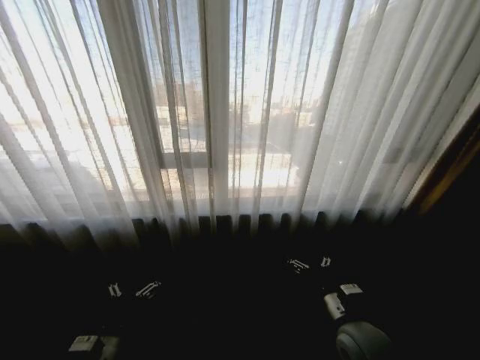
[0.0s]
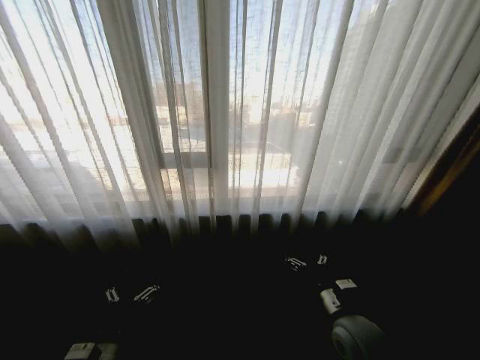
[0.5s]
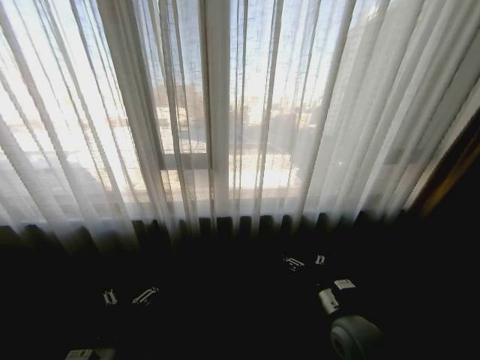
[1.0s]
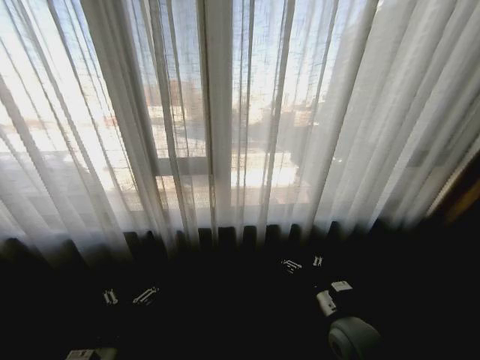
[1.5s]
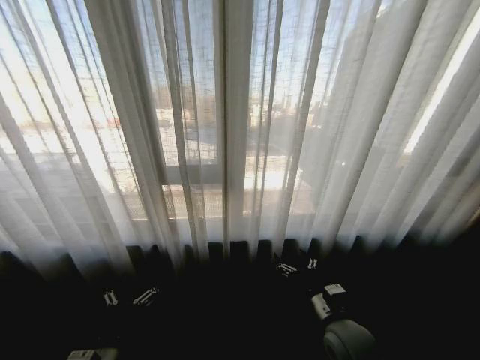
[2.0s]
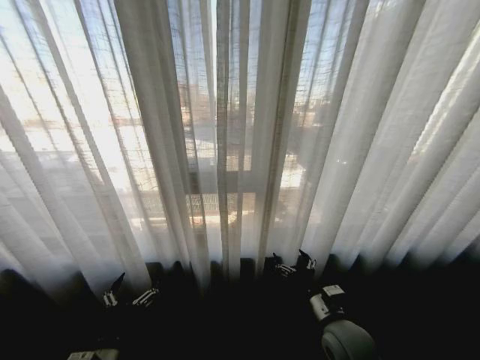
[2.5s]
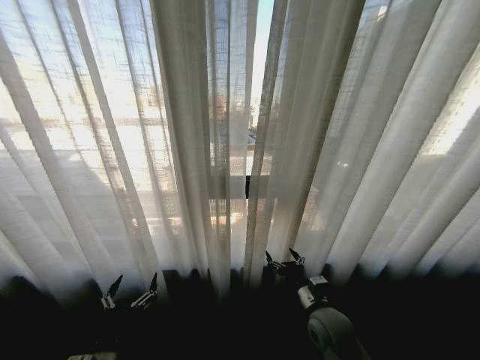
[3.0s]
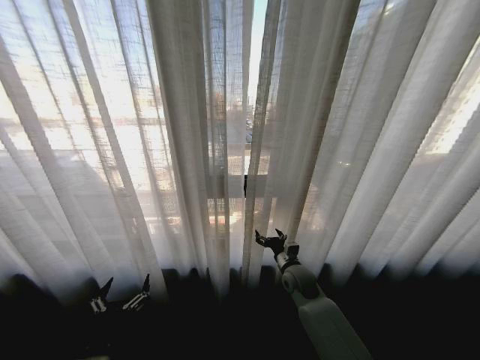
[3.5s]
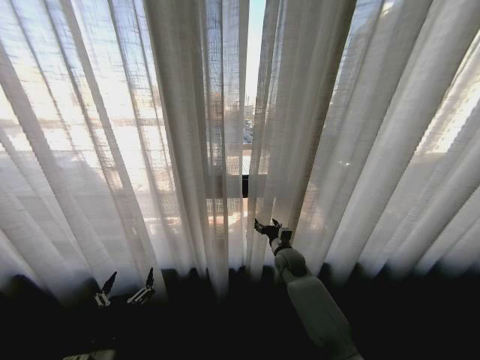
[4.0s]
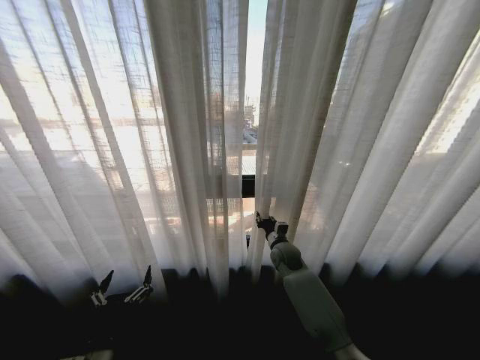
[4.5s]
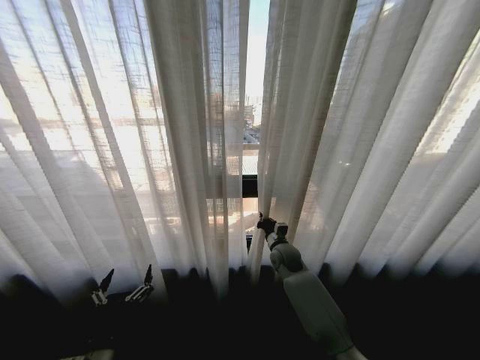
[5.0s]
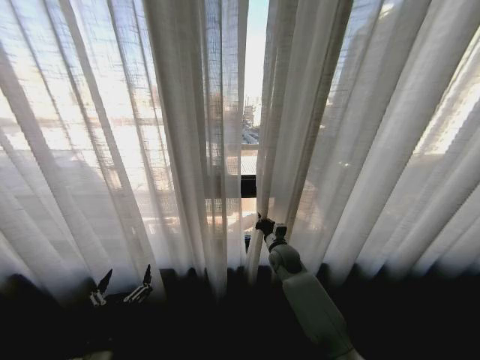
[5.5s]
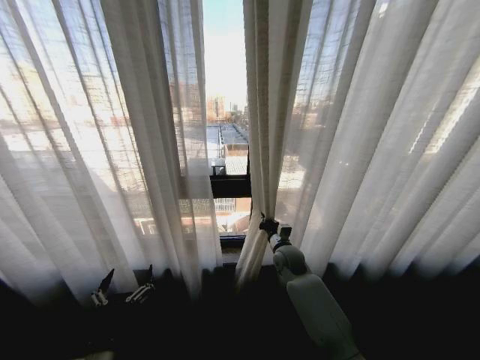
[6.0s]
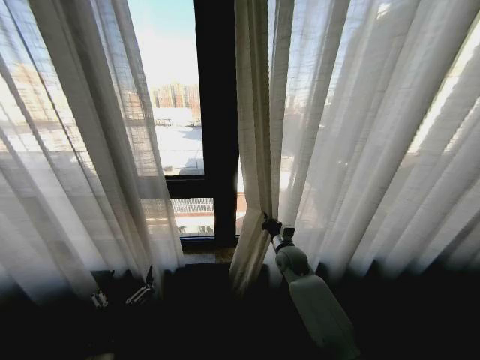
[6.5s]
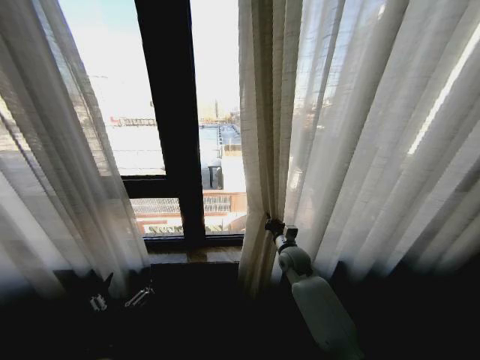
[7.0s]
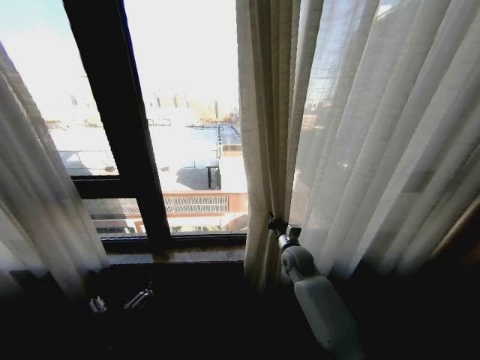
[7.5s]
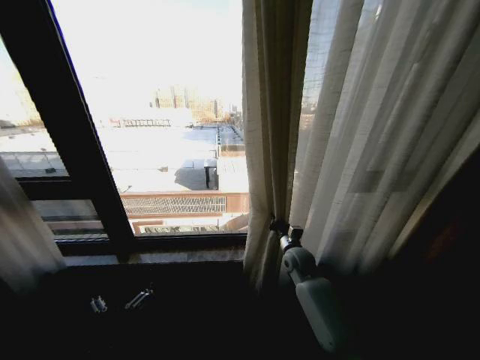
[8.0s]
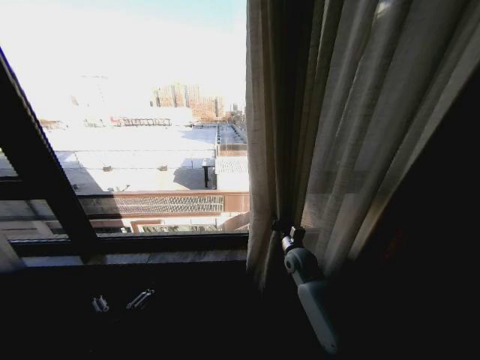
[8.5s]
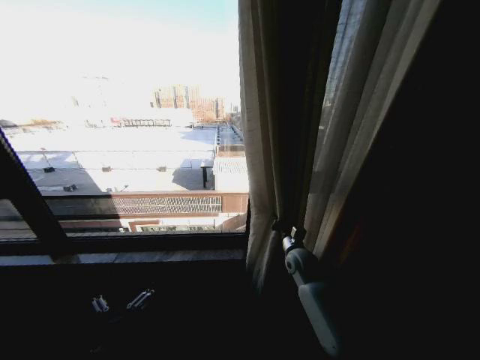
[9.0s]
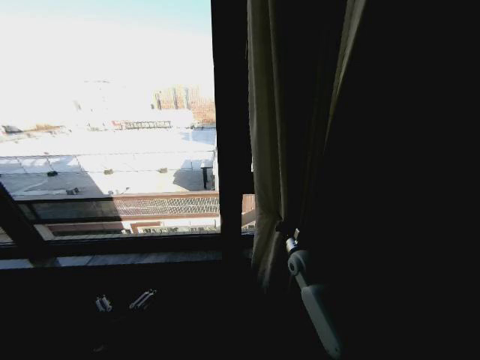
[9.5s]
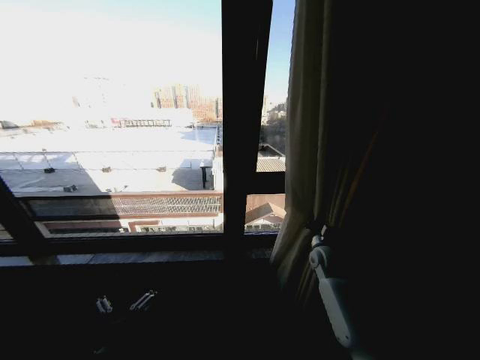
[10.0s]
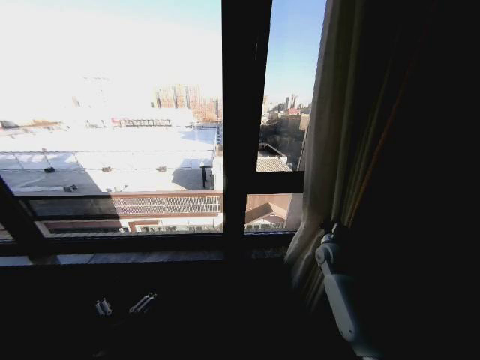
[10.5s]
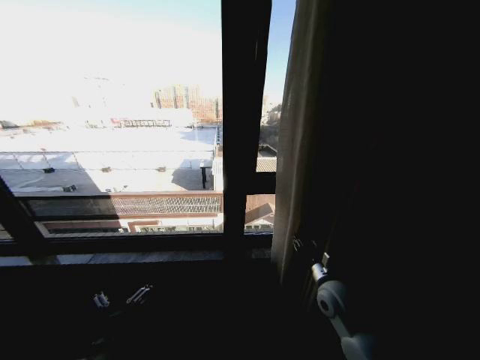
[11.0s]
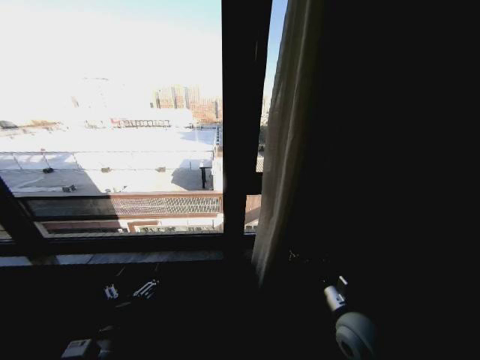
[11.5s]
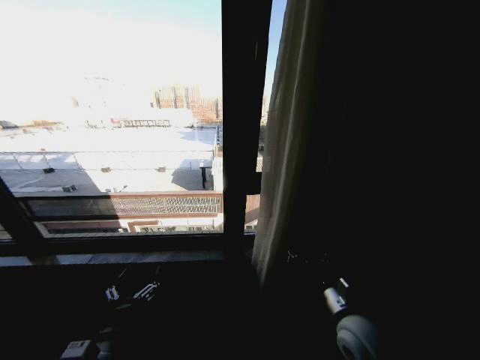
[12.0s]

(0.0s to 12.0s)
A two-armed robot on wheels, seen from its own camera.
Task of the whole recording: Open the curtains by pulling them apart, changing their state from closed to fully open.
2.0s - 4.0s: The right gripper is displaced forward by some 25 cm.
4.0s - 6.0s: The right gripper closes.
8.0s - 10.0s: The right gripper moves to the right, some 10 cm.
10.0s - 12.0s: The right gripper shifts roughly 25 cm backward, and opens its fingers.

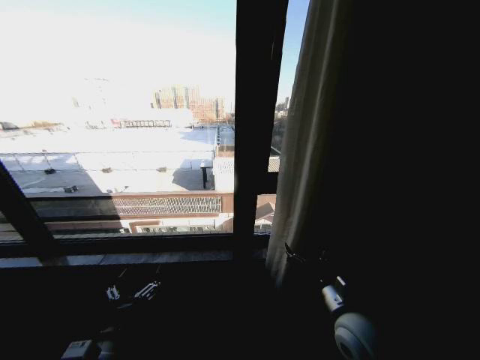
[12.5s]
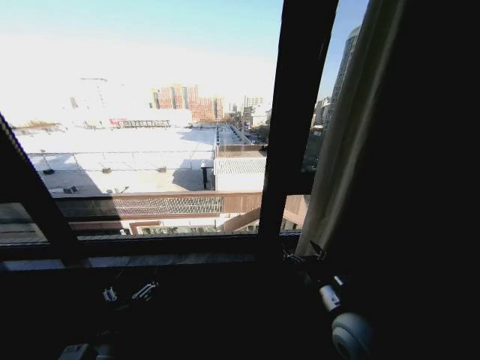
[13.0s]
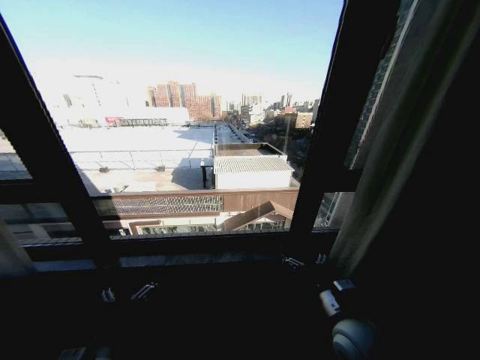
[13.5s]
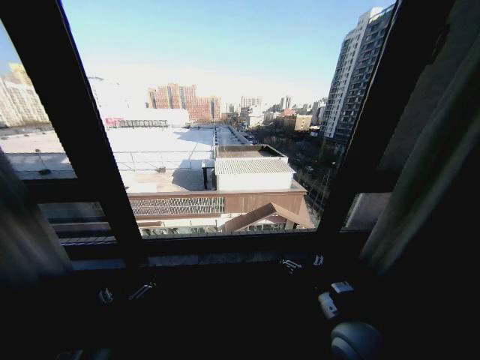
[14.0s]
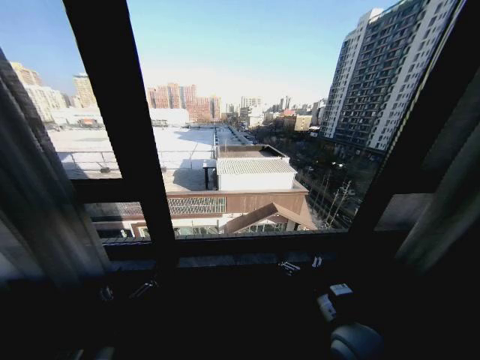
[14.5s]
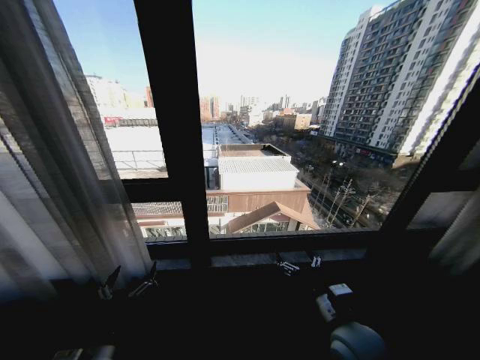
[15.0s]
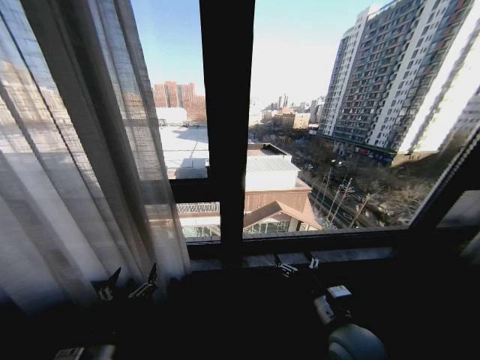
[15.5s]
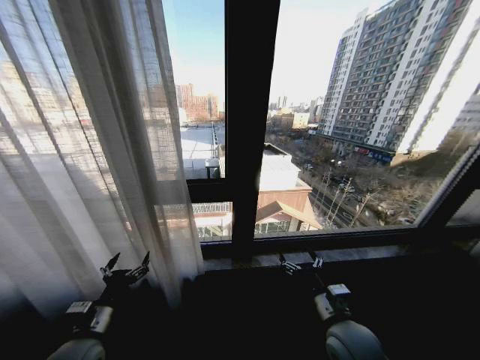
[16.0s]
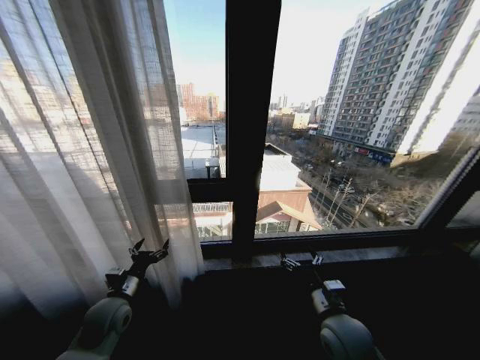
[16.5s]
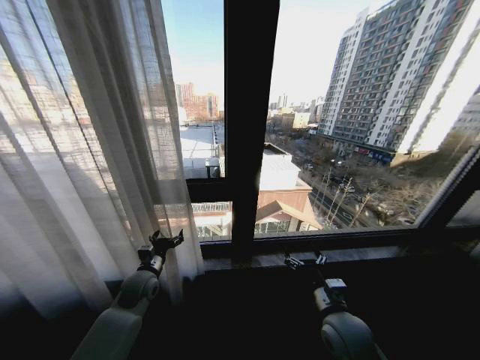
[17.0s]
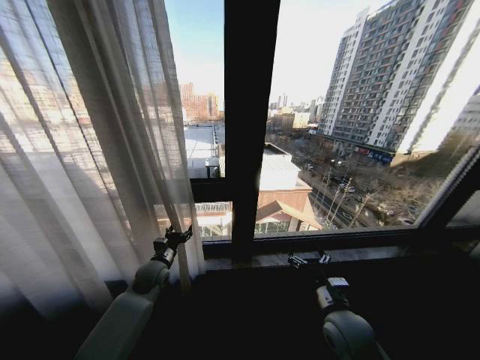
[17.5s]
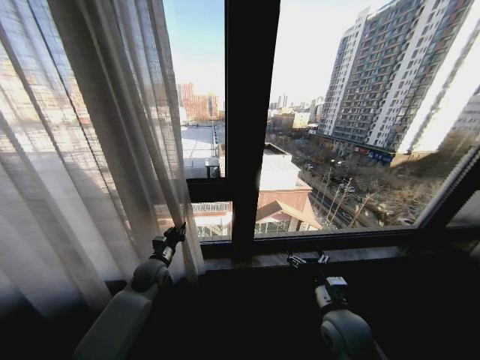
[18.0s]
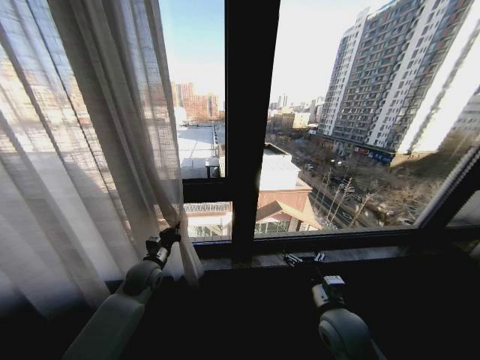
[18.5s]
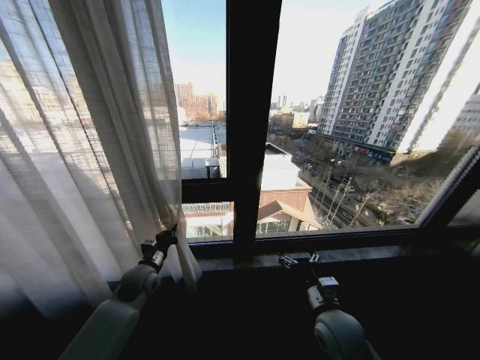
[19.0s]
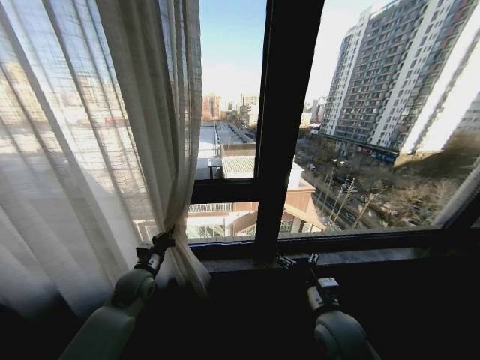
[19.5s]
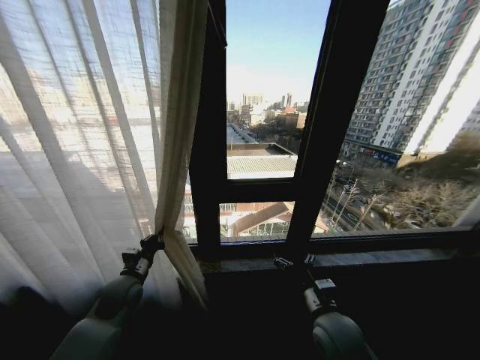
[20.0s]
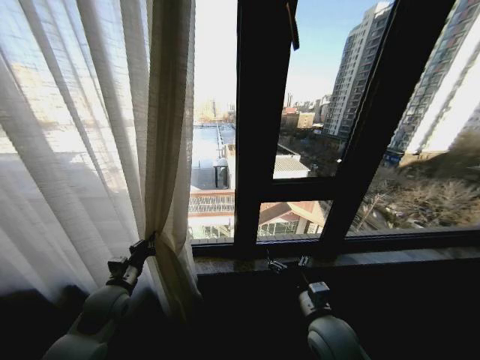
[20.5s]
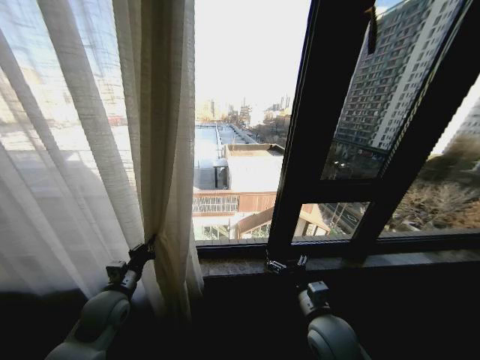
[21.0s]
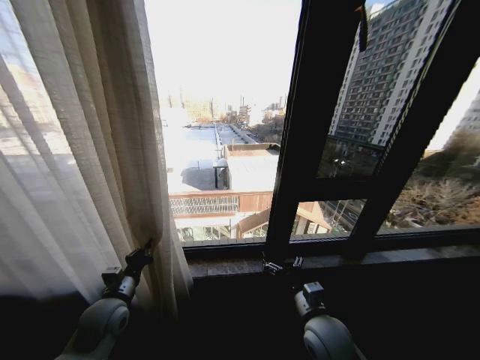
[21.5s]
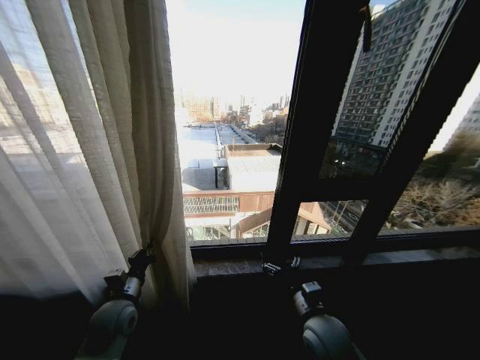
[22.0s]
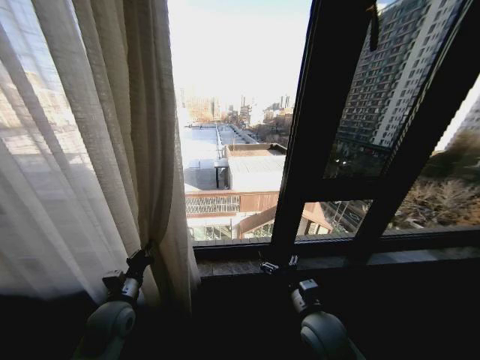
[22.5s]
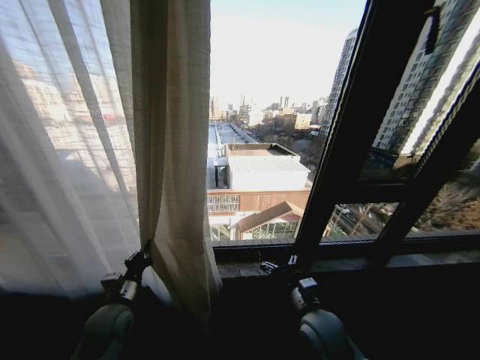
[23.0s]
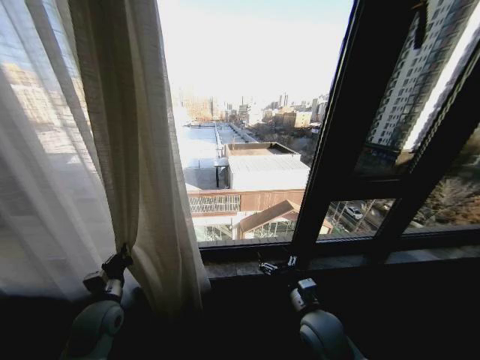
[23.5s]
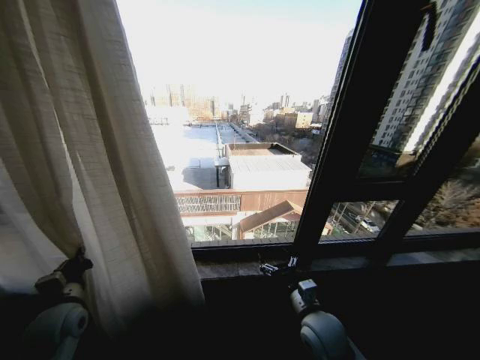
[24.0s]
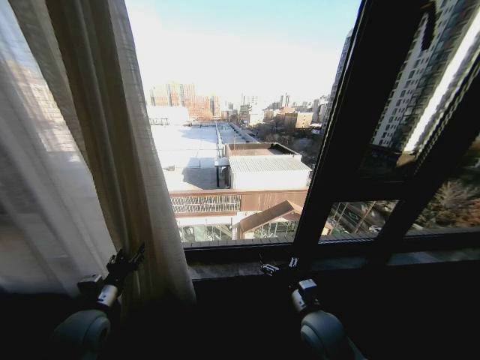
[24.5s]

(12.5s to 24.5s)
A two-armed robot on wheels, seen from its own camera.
Task of the whole recording: Open the curtains by pulling them apart, changing their state from closed to fully open.
14.5s - 16.5s: The left gripper goes about 20 cm forward and to the left.
16.5s - 18.5s: The left gripper is displaced forward and to the right by about 15 cm, and closes its fingers.
18.5s - 20.5s: The left gripper goes about 10 cm backward and to the left.
22.5s - 24.5s: The left gripper moves approximately 10 cm to the left and comes back, and opens.

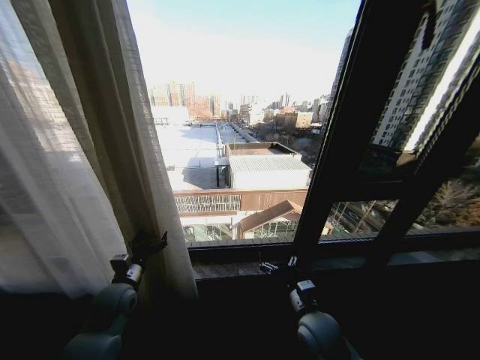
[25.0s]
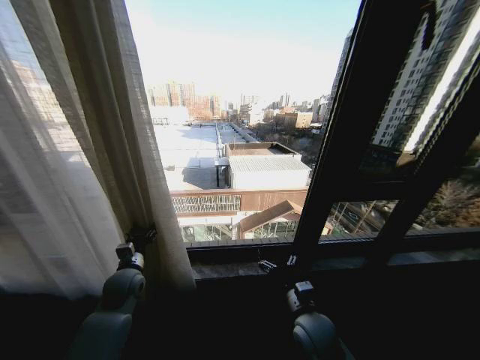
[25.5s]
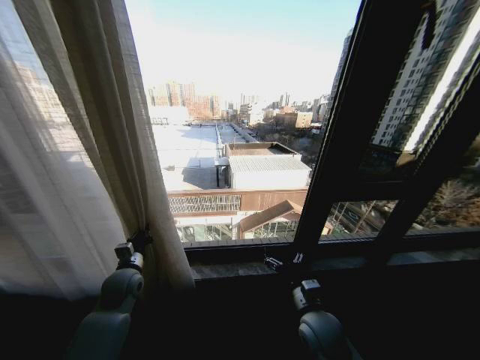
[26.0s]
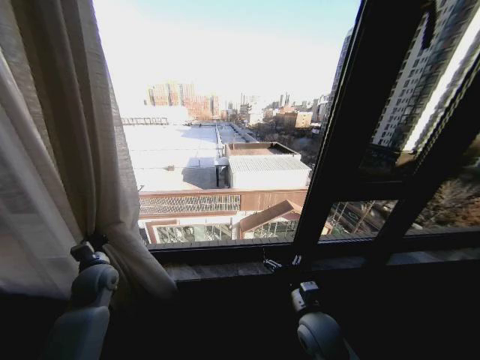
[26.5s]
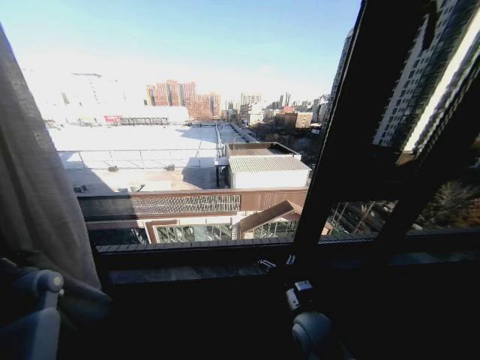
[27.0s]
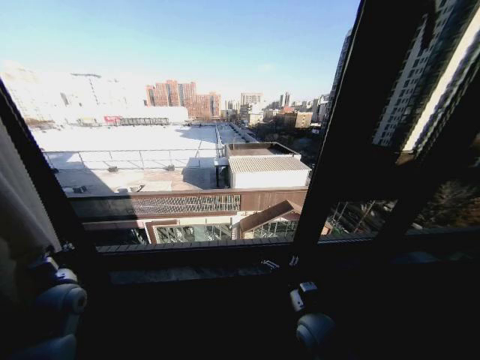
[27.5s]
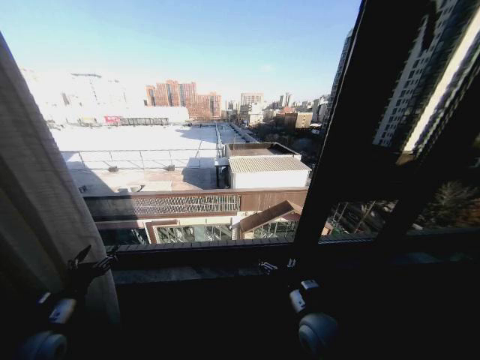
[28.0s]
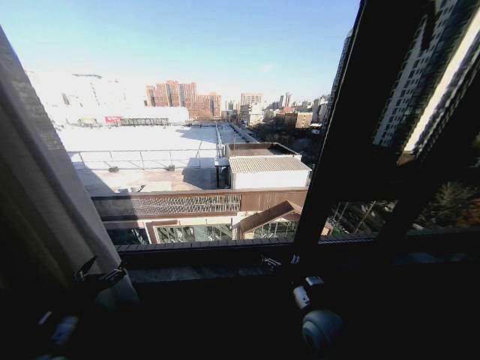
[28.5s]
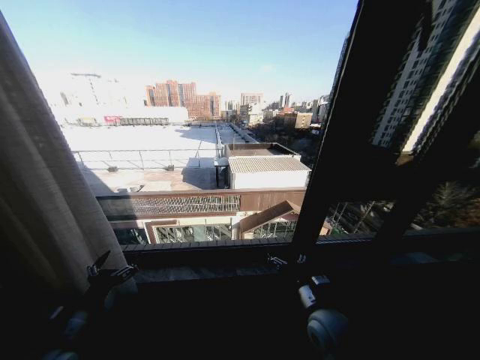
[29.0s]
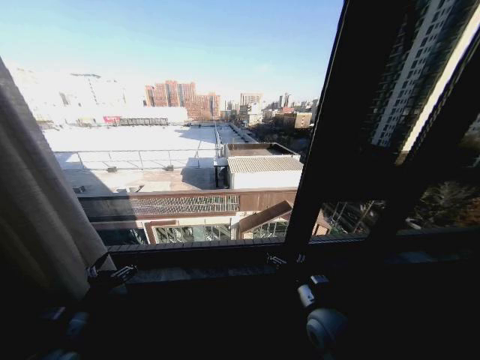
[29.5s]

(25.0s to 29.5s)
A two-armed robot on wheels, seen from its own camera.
Task of the whole recording: Open the curtains by pulling them apart, changing their state from closed to fully open.
25.0s - 27.0s: The left gripper moves to the left, approximately 20 cm, and closes.
27.0s - 29.5s: The left gripper travels to the right and backward by approximately 20 cm, and opens its fingers.
